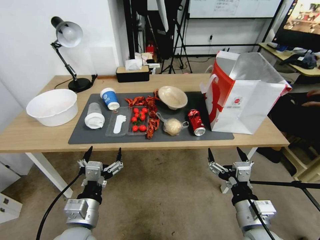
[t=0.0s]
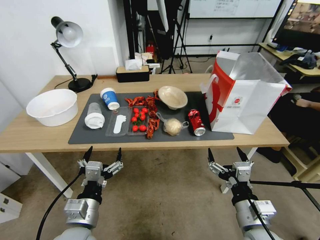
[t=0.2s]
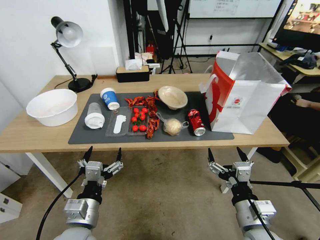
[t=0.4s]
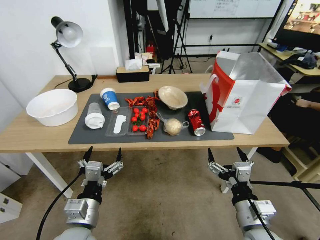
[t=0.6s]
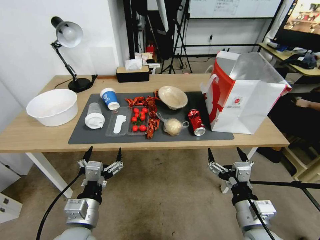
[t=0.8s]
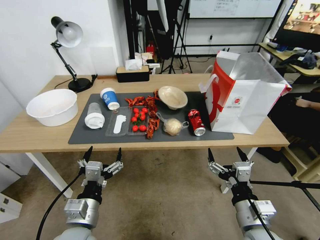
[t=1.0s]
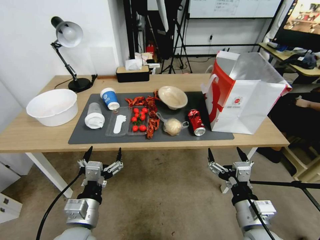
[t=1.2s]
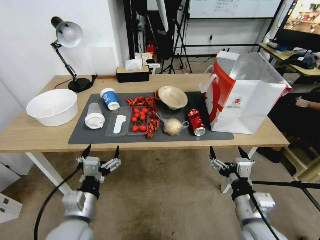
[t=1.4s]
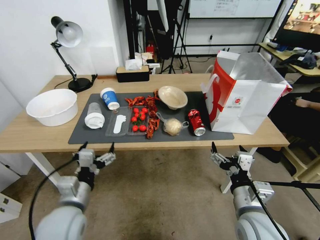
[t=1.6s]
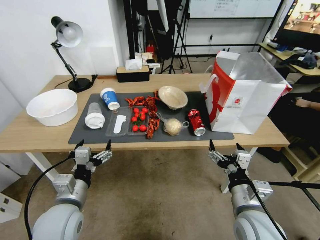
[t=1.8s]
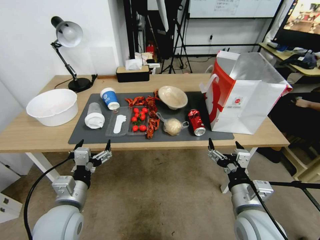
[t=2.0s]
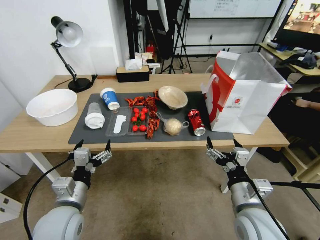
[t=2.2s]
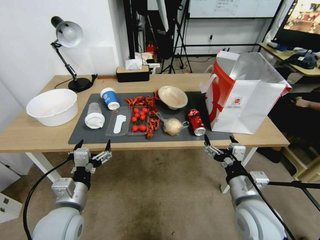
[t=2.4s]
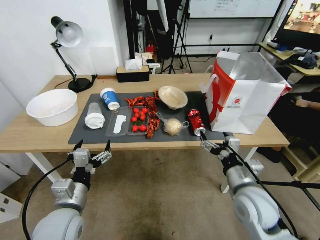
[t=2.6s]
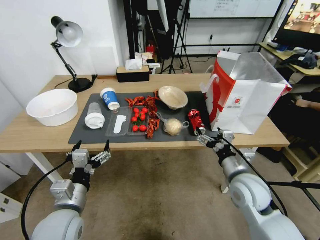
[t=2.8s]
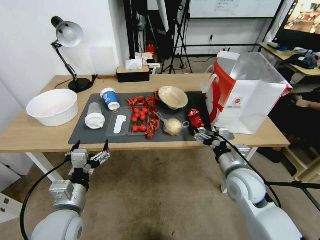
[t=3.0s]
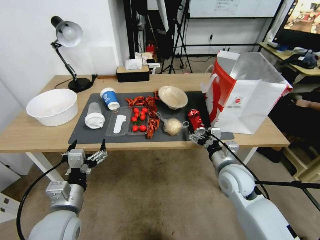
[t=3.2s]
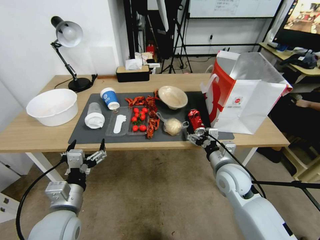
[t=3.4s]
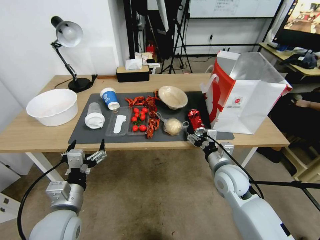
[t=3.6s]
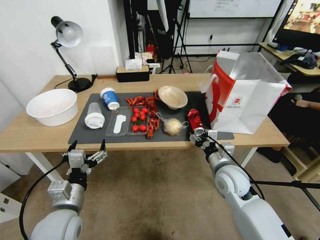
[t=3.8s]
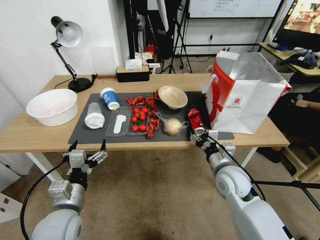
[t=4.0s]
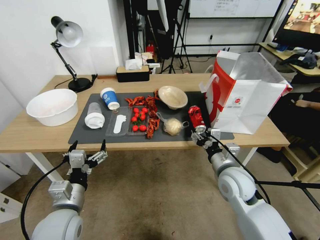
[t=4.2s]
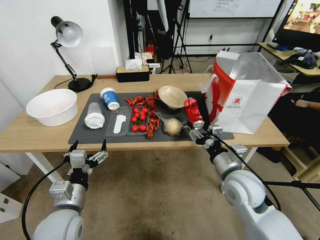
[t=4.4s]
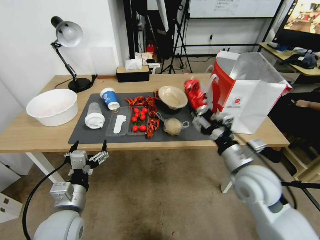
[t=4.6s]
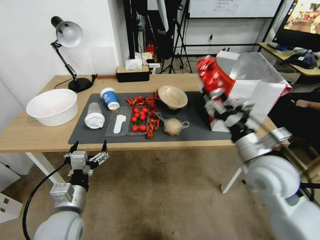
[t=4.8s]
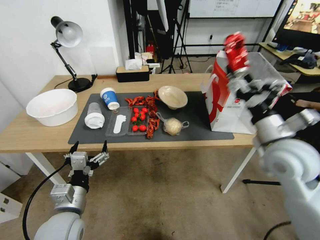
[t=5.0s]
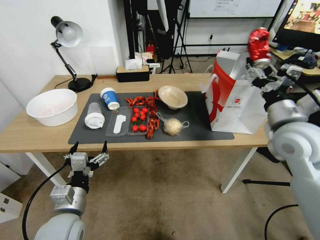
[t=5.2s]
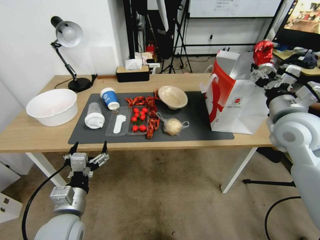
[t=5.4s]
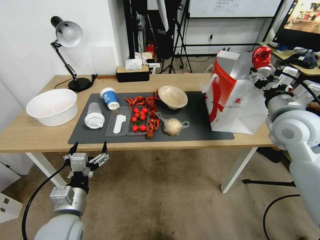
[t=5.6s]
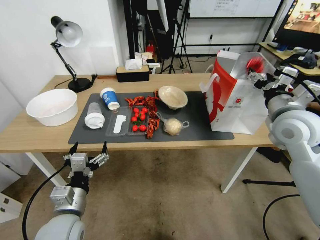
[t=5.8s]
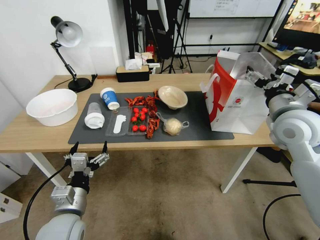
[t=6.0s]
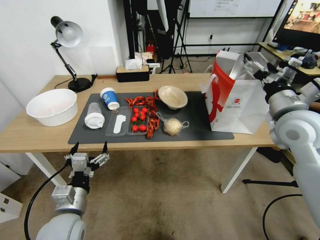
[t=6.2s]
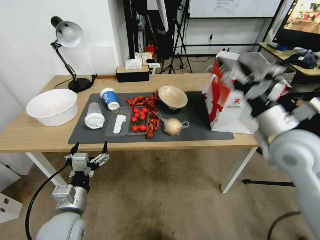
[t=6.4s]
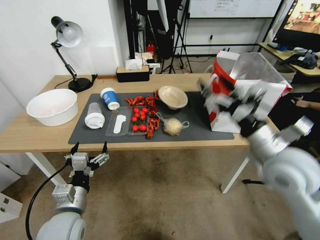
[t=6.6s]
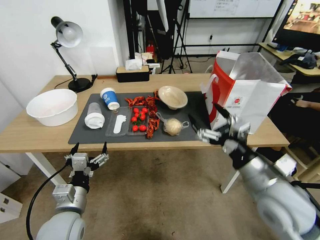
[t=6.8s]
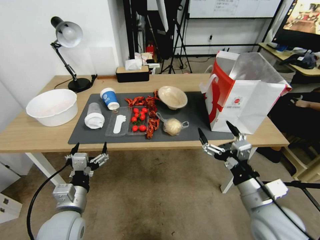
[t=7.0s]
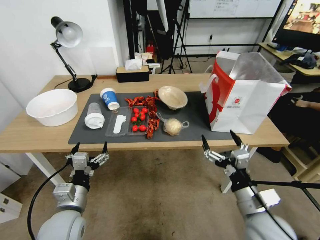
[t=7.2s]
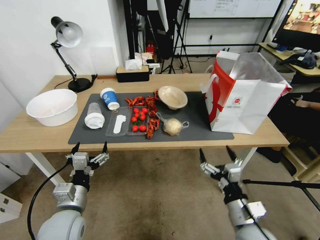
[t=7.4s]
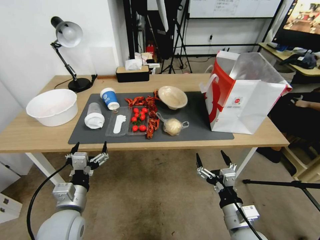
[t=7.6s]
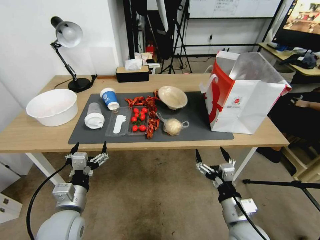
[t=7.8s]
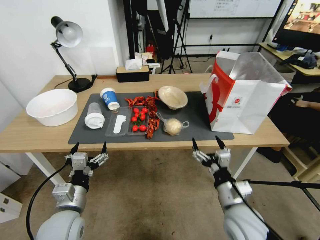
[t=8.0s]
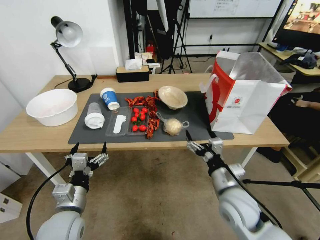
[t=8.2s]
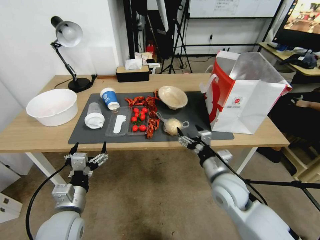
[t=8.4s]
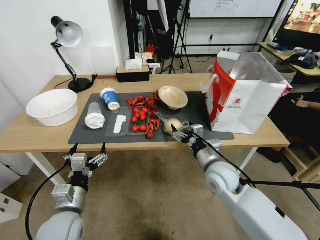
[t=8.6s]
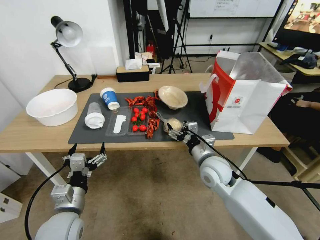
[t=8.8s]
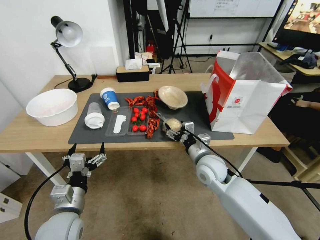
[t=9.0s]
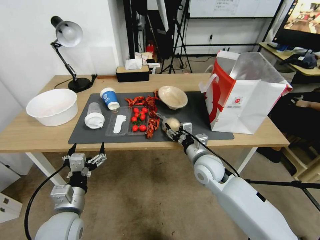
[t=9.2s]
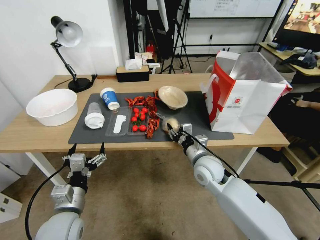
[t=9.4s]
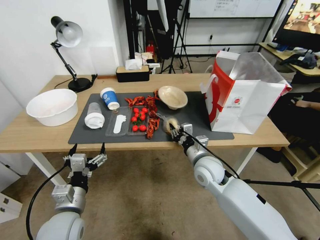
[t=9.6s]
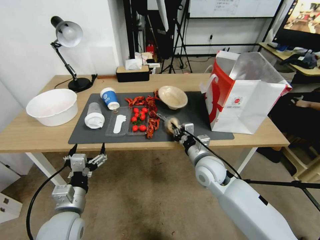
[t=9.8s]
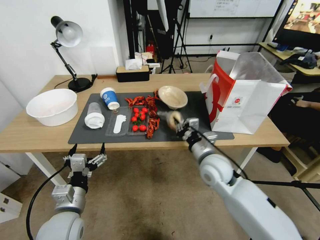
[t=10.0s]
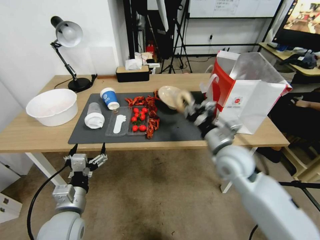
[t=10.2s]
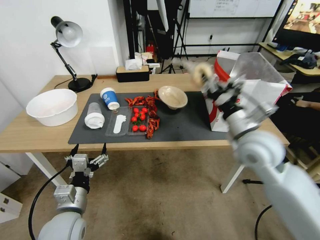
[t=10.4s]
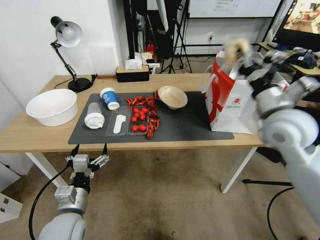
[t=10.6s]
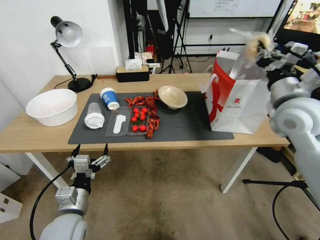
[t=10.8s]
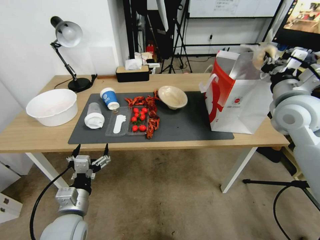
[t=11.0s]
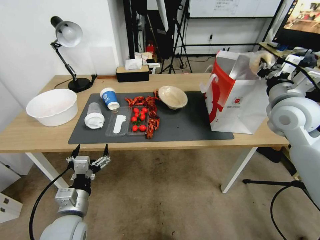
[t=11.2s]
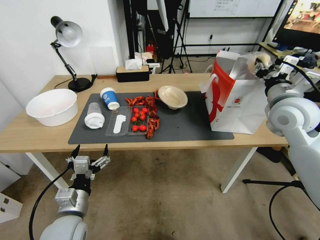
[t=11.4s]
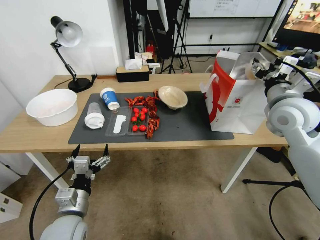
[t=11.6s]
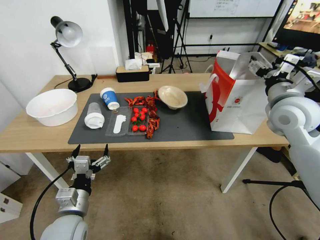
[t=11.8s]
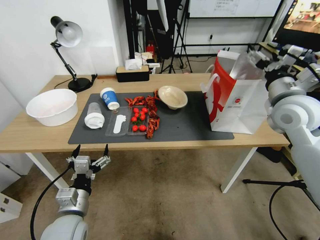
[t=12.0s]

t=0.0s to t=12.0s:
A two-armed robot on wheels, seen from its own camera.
t=1.6s to t=3.0s: The right gripper moves forward, some 5 cm.
t=3.0s to t=4.4s: The right gripper closes its fingers.
t=4.4s to t=6.0s: The right gripper heads upward, to the right and forward, covering approximately 20 cm, and opens.
t=6.0s to t=7.6s: The right gripper travels downward, backward and to the left by approximately 35 cm.
t=7.6s to t=9.0s: The right gripper heads forward, covering some 20 cm.
t=9.0s to t=10.4s: The right gripper moves upward, about 10 cm, and closes its fingers.
t=10.4s to t=12.0s: The right gripper is displaced to the right, upward and forward by some 15 cm, and opens.

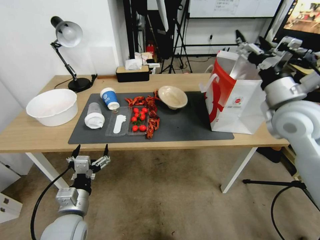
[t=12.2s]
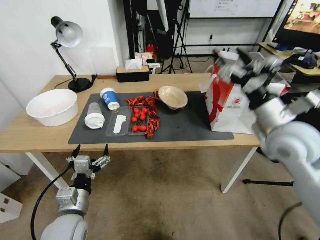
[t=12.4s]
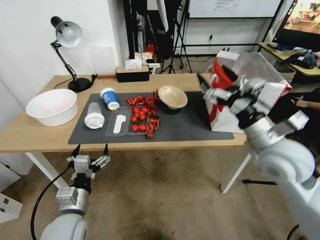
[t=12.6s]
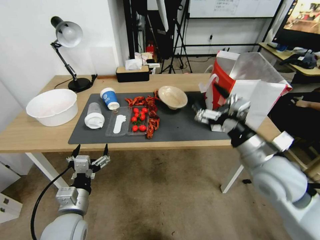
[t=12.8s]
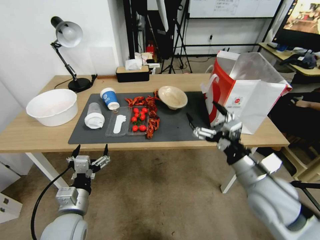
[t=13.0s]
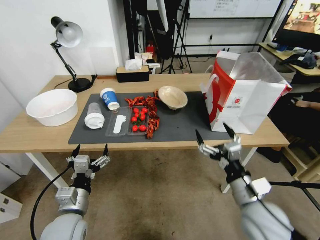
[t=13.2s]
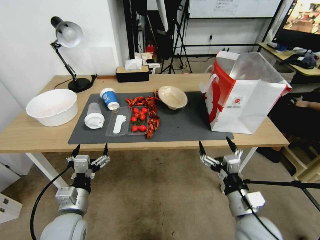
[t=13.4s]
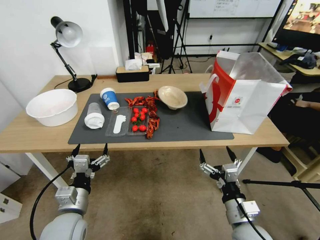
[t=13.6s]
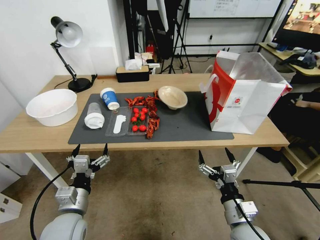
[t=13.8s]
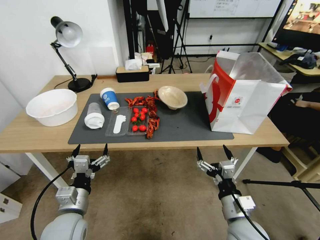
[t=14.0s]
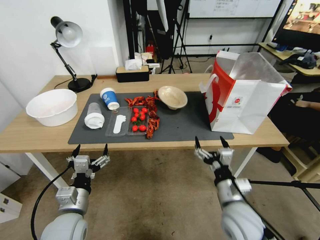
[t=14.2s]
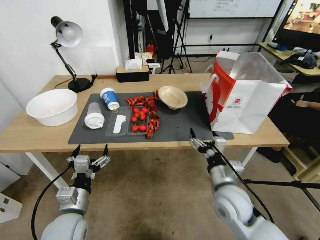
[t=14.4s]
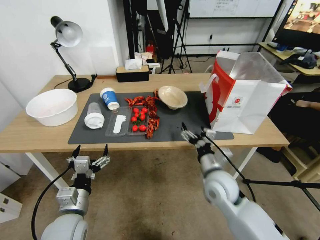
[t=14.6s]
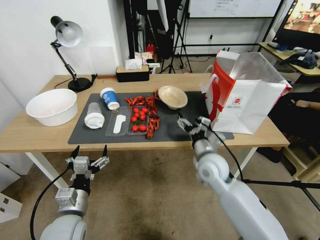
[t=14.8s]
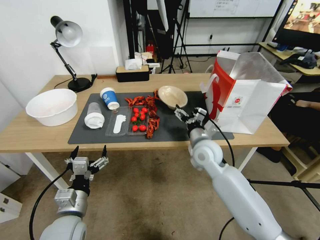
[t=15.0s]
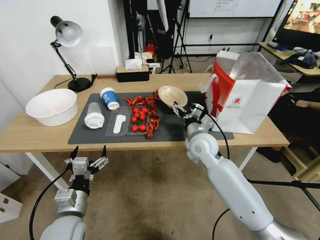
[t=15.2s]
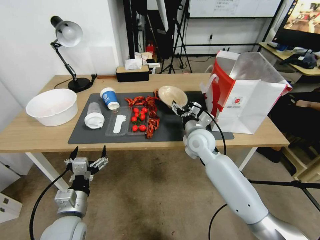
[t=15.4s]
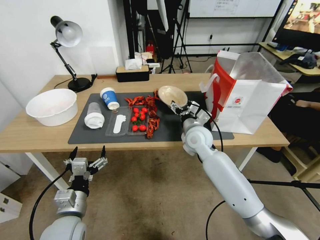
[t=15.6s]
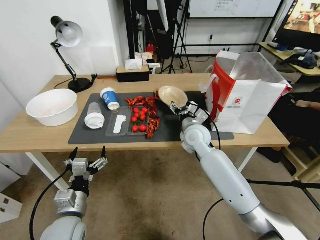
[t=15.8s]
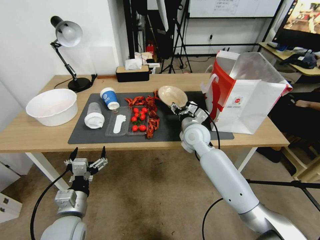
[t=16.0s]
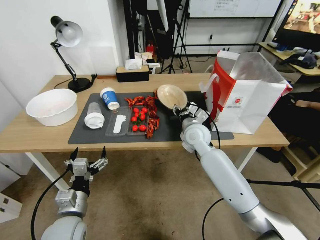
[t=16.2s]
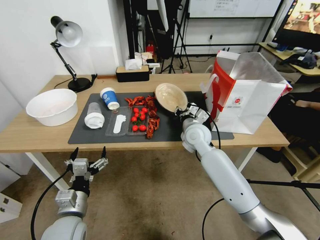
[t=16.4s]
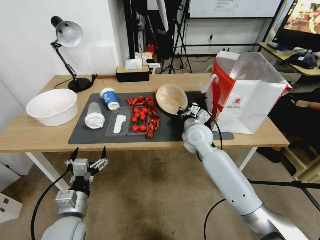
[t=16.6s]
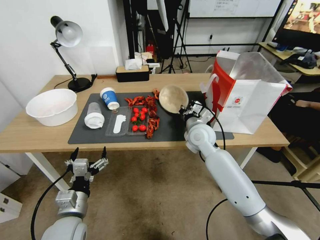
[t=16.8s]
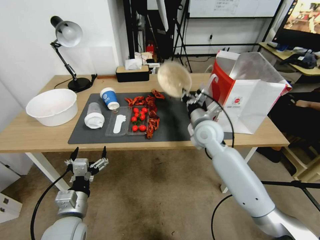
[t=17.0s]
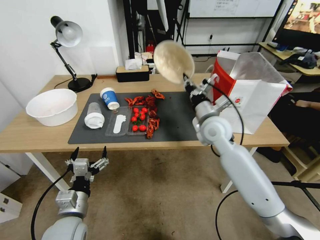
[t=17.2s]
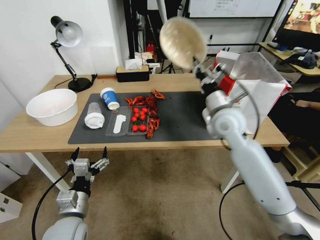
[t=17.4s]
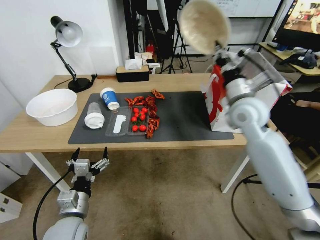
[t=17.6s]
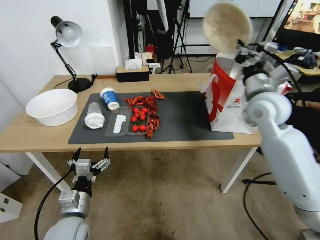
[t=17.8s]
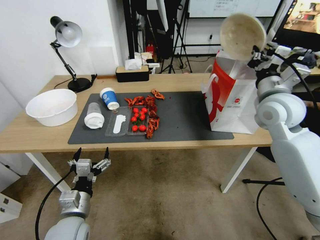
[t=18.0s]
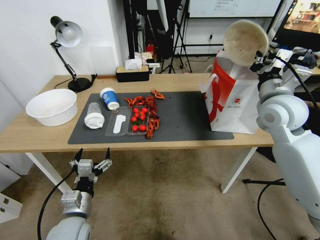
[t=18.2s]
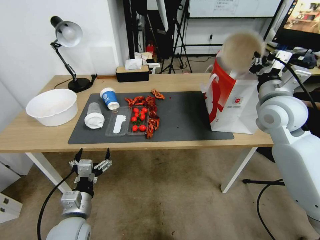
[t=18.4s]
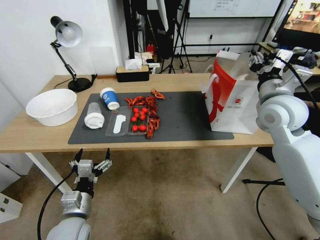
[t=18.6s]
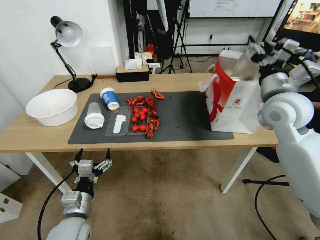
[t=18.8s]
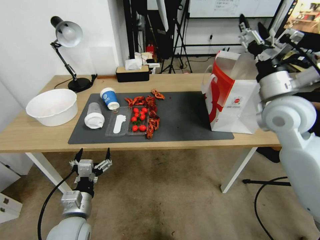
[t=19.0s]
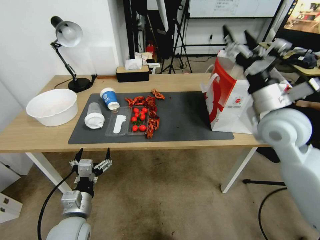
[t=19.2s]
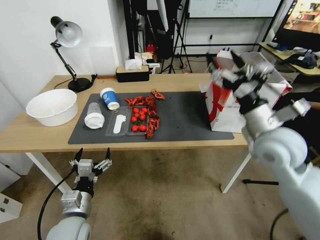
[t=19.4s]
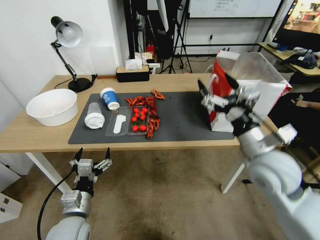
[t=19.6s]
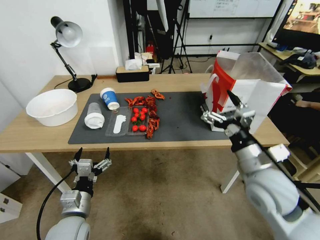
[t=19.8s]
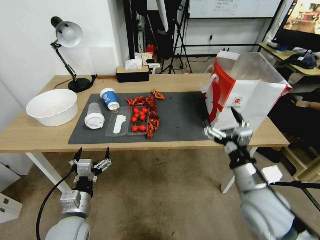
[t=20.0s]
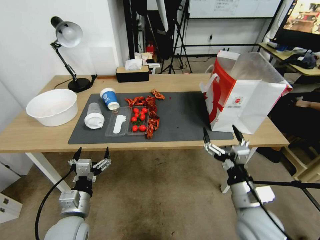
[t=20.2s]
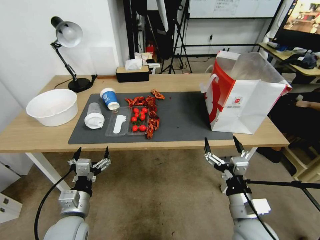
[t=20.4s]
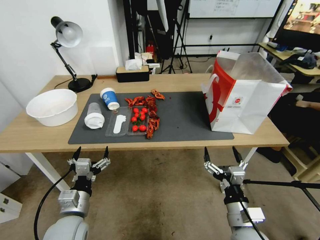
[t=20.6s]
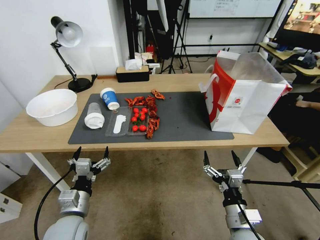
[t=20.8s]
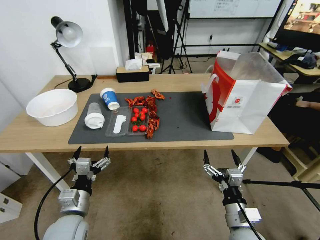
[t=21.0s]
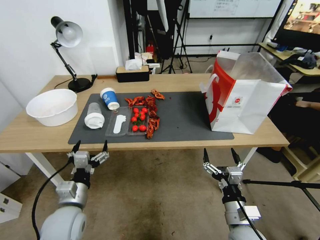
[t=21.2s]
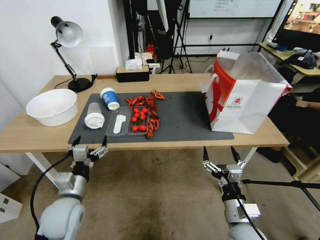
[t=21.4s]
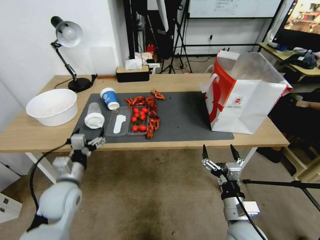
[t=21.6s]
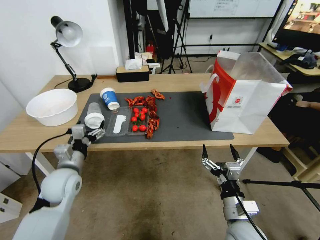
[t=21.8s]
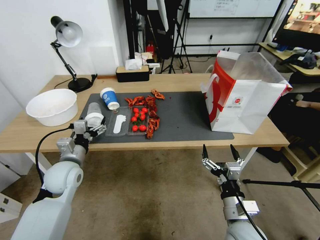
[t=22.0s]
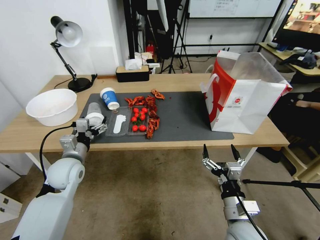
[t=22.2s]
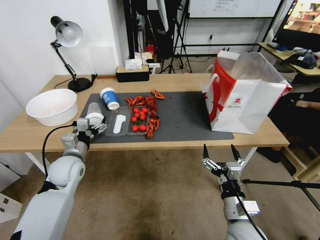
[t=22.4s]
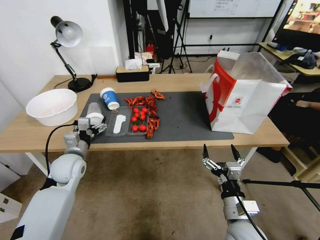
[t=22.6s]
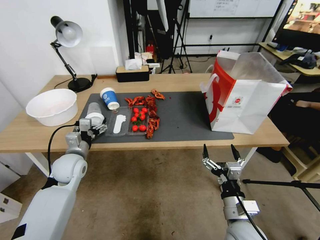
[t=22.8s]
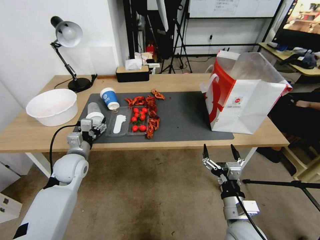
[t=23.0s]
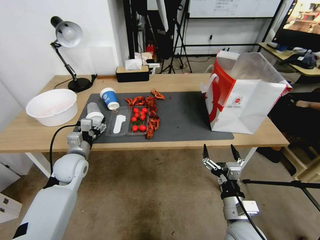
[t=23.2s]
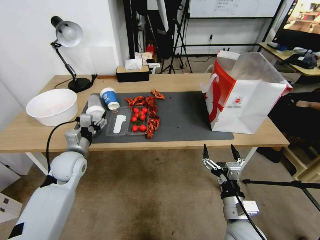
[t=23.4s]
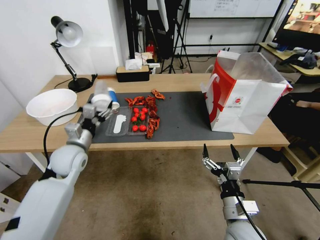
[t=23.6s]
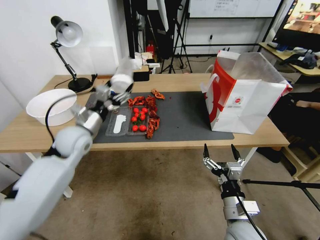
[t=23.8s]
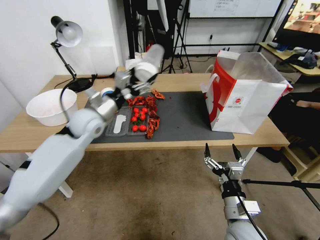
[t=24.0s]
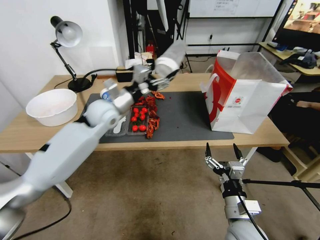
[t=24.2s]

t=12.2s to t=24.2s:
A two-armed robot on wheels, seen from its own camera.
t=12.2s to t=13.8s: The right gripper travels downward and backward by approximately 35 cm.
t=13.8s to t=15.2s: The right gripper is displaced forward by some 25 cm.
t=15.2s to t=16.6s: The right gripper closes up.
t=16.6s to t=18.2s: The right gripper is displaced upward and to the right by approximately 25 cm.
t=18.2s to t=19.8s: The right gripper is displaced backward and downward by roughly 15 cm, and opens up.
t=19.8s to t=21.2s: The right gripper is displaced downward and backward by roughly 25 cm.
t=21.2s to t=22.6s: The left gripper goes some 15 cm forward.
t=22.6s to t=24.2s: The left gripper moves upward, to the right and forward, about 20 cm.
